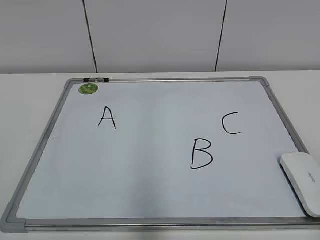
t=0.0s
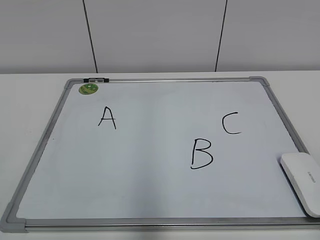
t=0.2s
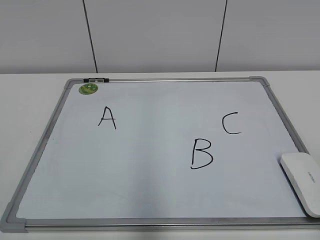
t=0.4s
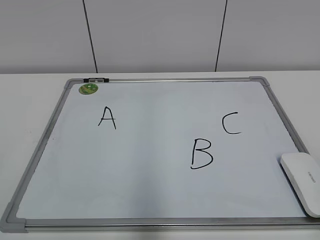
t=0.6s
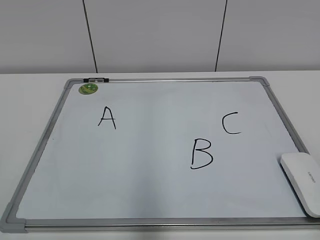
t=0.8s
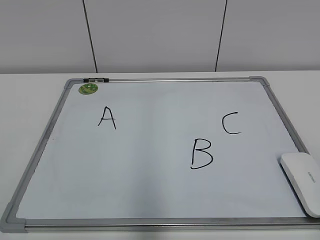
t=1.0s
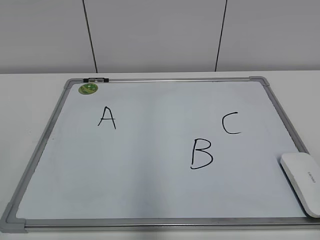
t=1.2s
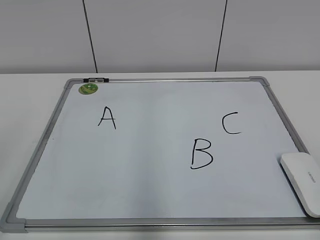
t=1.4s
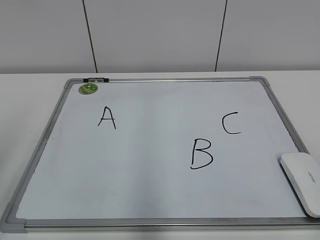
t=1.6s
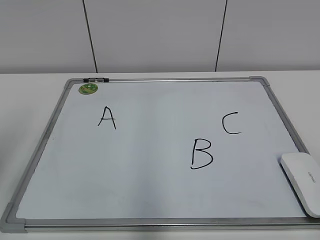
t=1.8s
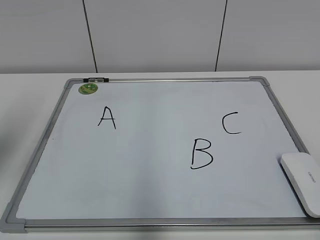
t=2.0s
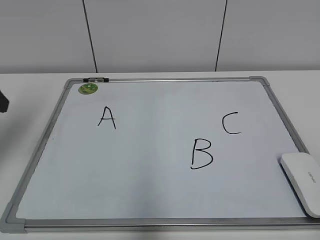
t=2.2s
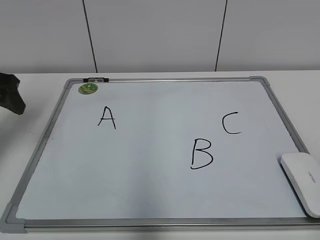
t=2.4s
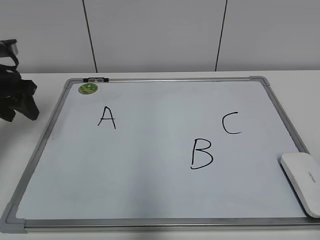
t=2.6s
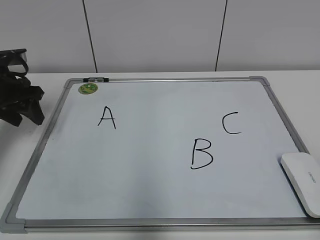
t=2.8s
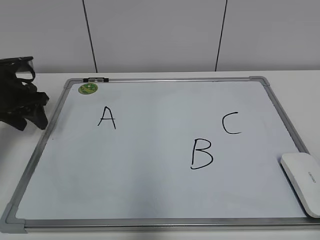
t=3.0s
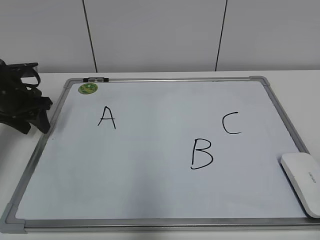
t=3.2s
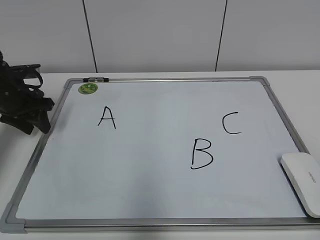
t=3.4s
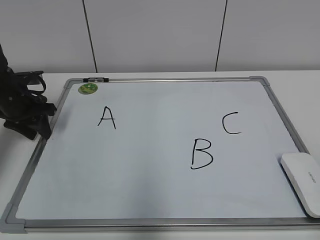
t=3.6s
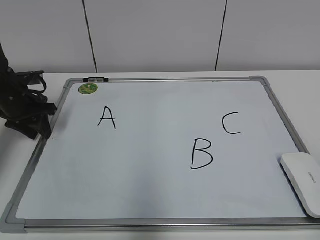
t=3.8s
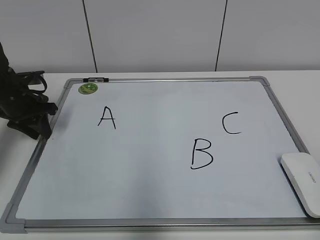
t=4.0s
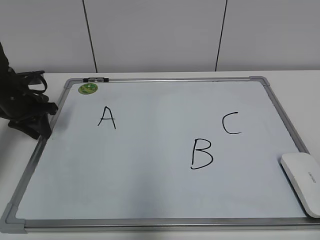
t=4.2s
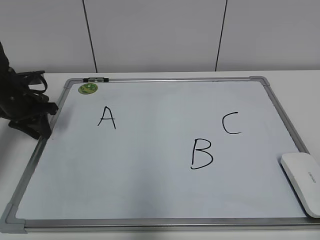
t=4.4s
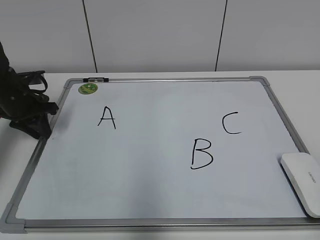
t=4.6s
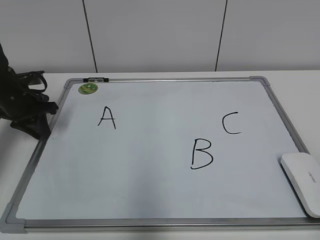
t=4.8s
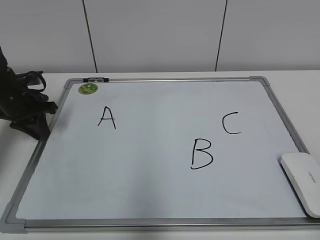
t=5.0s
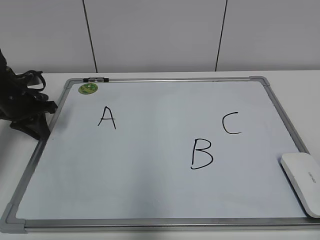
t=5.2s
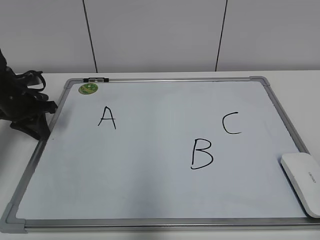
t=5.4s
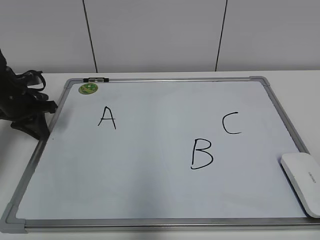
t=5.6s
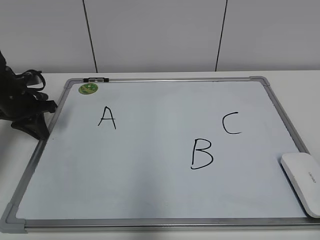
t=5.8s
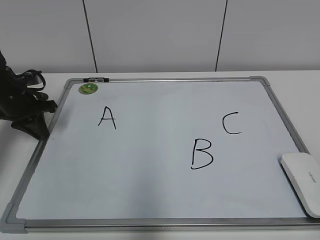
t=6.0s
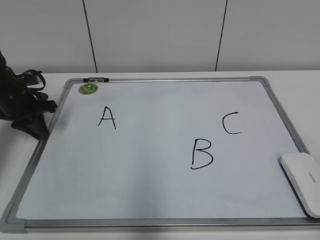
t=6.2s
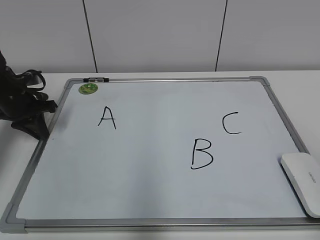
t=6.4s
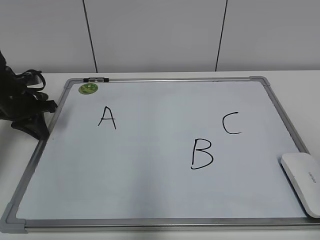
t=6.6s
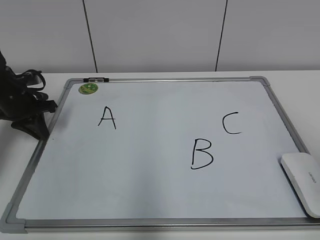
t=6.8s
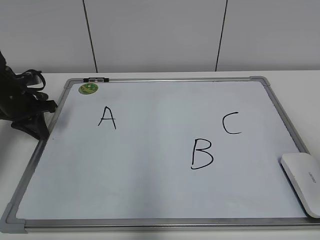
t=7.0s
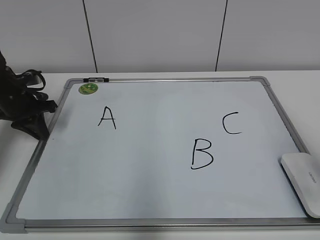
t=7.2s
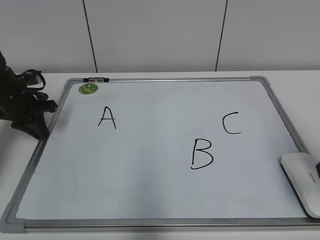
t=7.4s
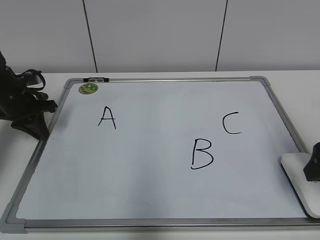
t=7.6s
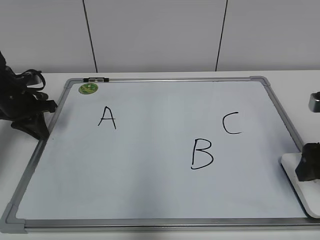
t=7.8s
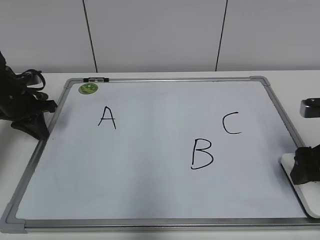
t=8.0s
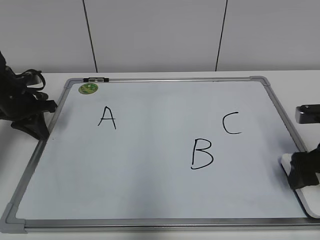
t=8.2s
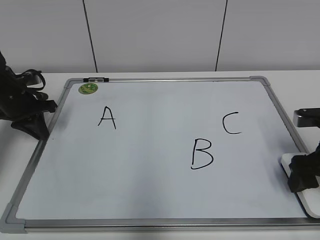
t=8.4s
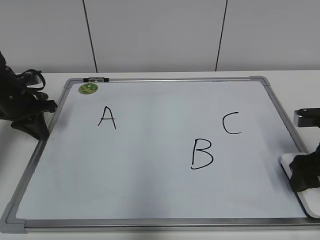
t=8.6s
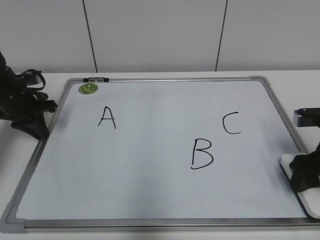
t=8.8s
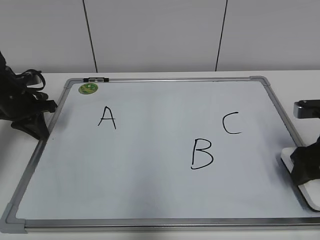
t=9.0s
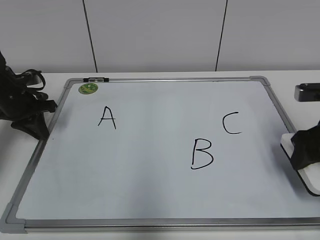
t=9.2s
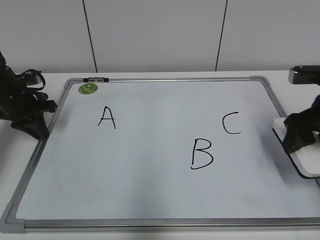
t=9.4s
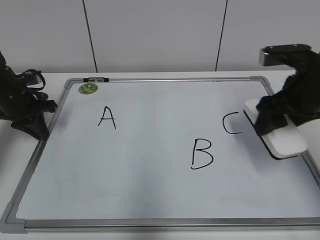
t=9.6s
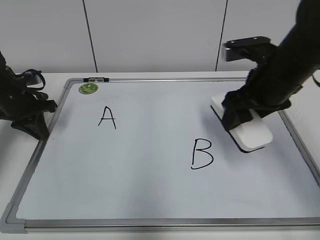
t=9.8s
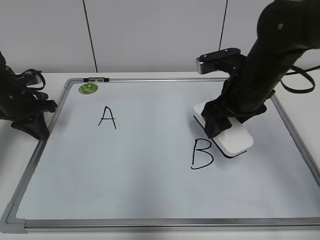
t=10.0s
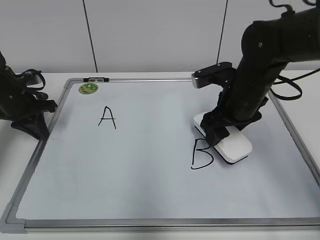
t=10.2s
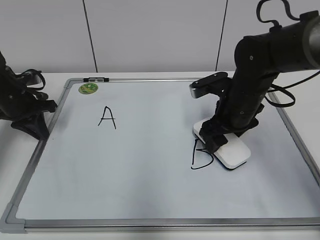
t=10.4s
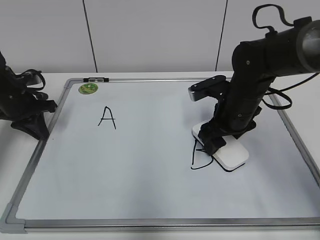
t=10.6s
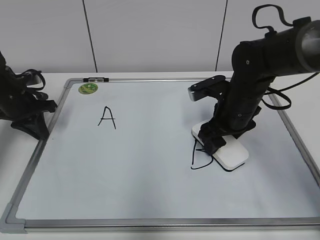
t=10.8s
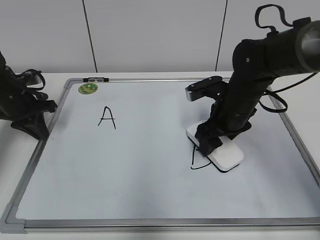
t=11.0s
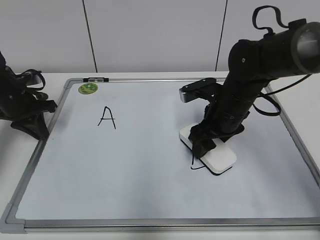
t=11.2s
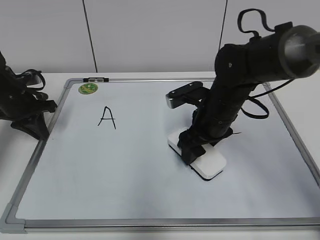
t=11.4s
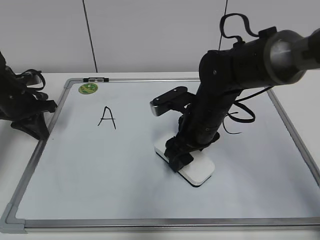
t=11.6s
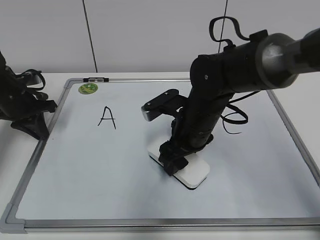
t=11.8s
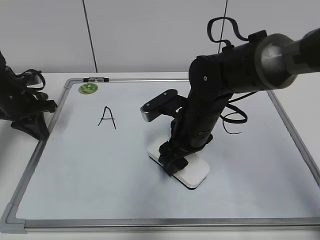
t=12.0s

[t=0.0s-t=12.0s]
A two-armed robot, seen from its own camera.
Task of the whole recording: pick up the eraser on the blackboard and erase the letter "B".
Step, t=0.0s to t=4.6s: Hold the drawing board steady with your left hand.
Step, t=5.0s to t=8.6s: Grab the eraser with your right hand.
t=1.6s to t=3.0s: The left gripper moves forward and downward, some 30 cm.
t=3.0s to t=4.4s: The left gripper changes place by some 5 cm, and closes up.
t=4.4s to t=6.0s: Both grippers stay about where they are.
t=6.0s to t=7.6s: The right gripper travels forward by some 25 cm, and opens.
t=7.6s to t=9.0s: The right gripper travels downward and forward by approximately 10 cm, and closes.
t=9.0s to t=10.4s: The right gripper heads to the left and forward, covering some 15 cm.
t=10.4s to t=12.0s: The right gripper travels to the left by some 10 cm.

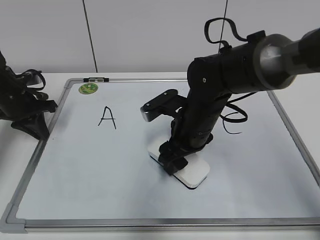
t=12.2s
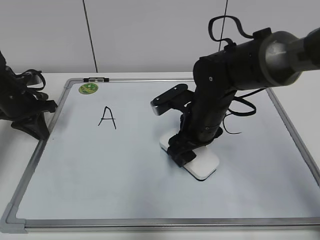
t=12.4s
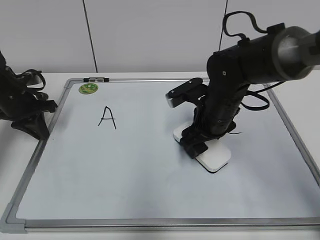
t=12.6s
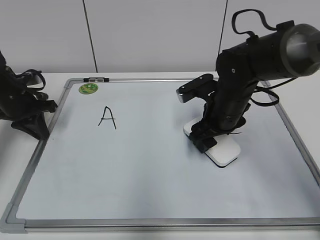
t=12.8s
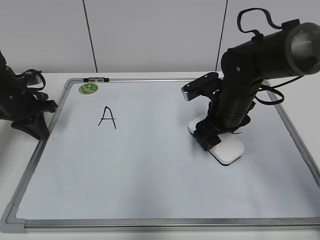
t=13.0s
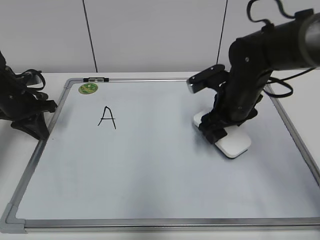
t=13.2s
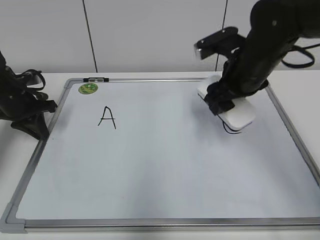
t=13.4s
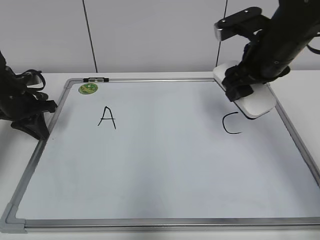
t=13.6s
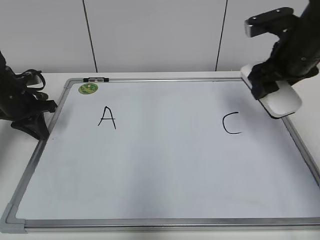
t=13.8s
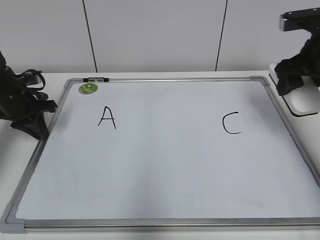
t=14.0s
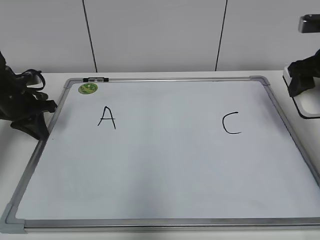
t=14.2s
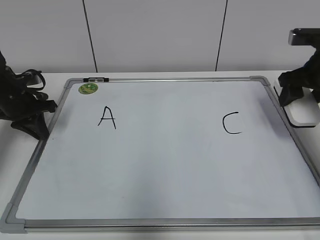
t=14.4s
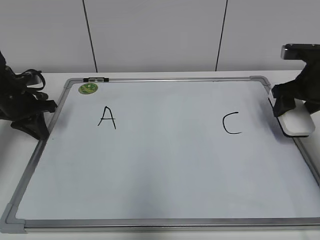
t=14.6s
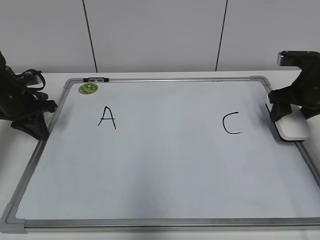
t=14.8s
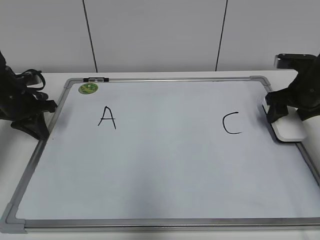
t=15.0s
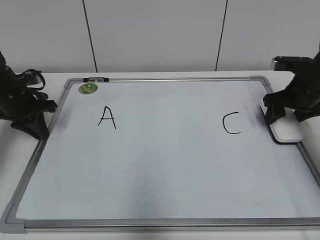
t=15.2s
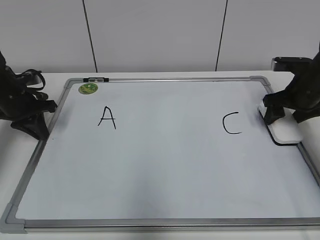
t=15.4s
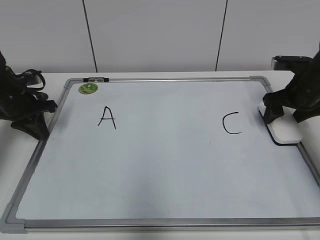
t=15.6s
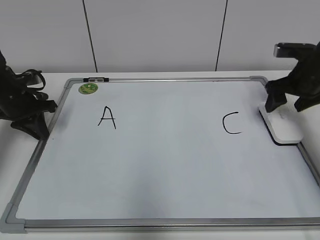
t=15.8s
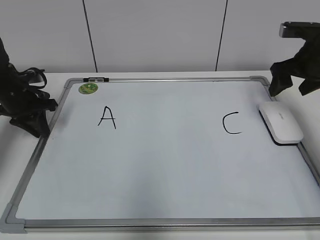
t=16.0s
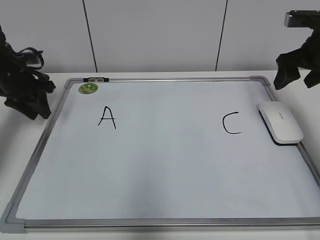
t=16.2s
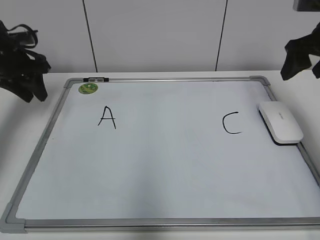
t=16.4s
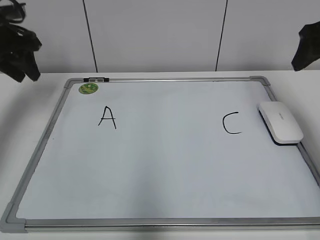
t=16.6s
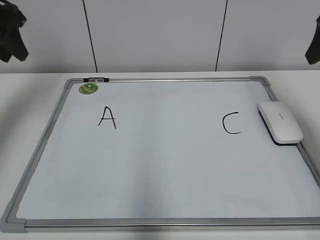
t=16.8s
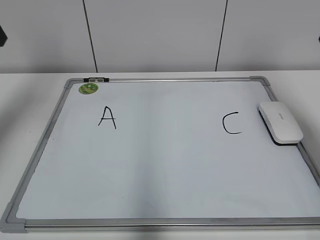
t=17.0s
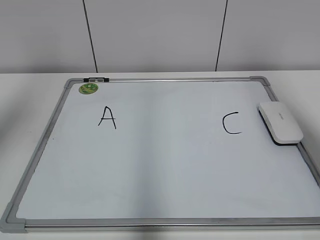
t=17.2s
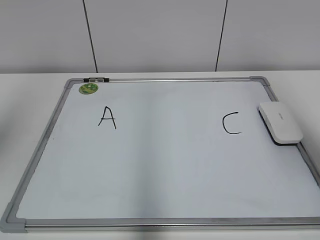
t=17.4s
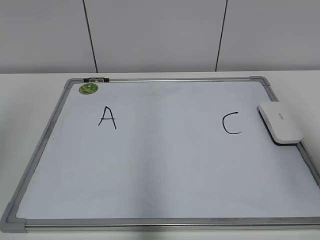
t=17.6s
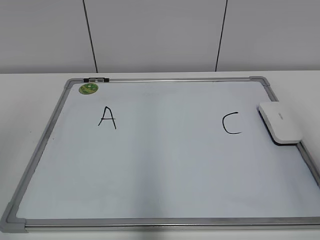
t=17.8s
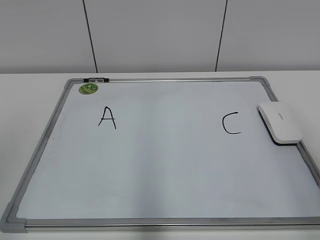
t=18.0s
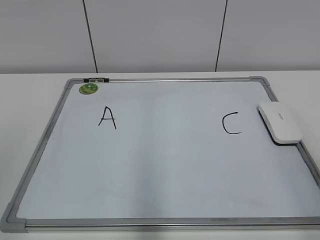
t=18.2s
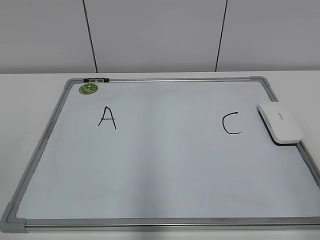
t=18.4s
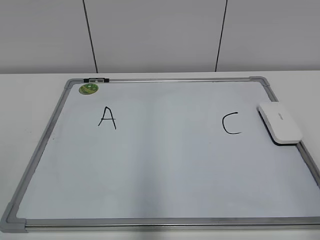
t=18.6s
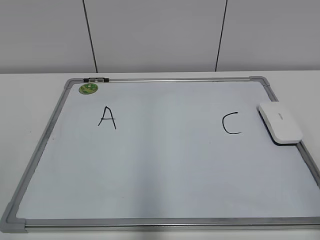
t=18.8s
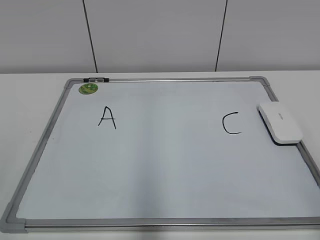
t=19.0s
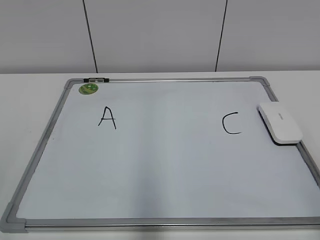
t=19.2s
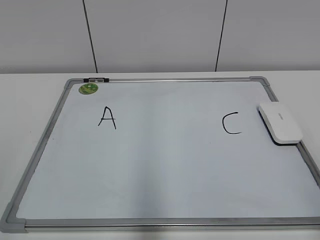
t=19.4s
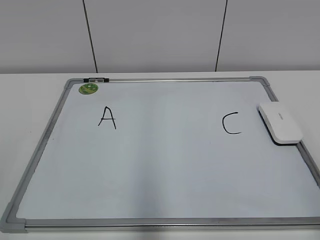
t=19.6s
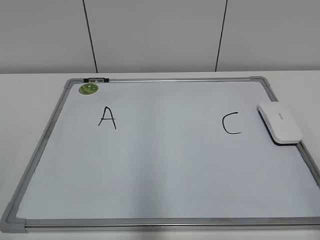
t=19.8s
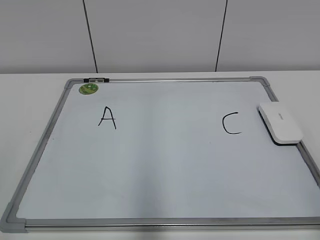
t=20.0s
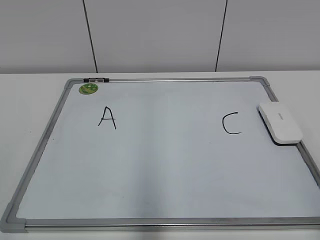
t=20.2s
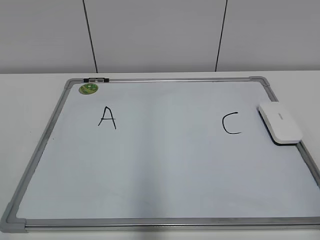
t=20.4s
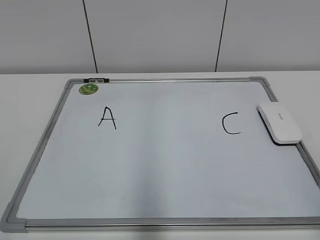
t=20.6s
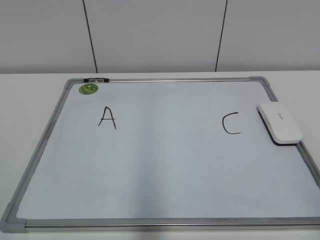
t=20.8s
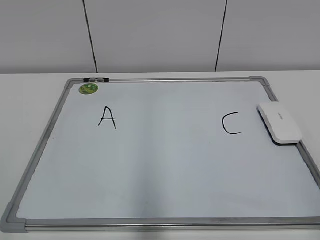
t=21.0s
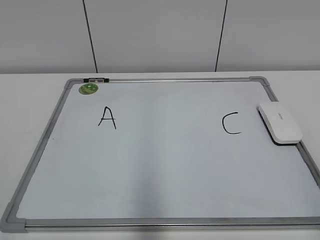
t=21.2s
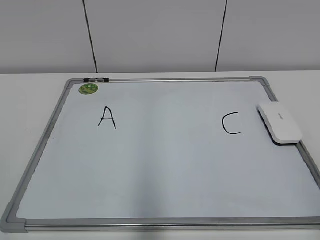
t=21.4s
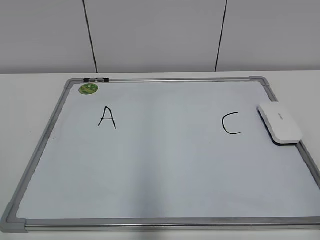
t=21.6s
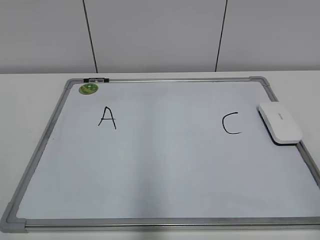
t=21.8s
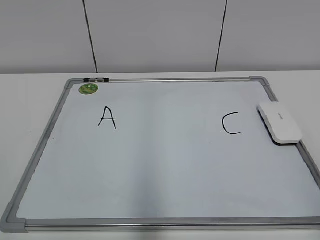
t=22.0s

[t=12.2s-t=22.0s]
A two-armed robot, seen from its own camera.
Task of the whole recording: pick up the eraser on the blackboard and erase the letter "B".
Step, t=13.2s to t=15.6s: Put down the eraser with your right hand.
t=12.2s to t=13.6s: The right gripper moves upward and to the right, roughly 15 cm.
t=13.6s to t=15.0s: The right gripper moves to the right and downward, roughly 15 cm.
t=15.0s to t=16.4s: The left gripper goes about 5 cm upward, and opens its fingers. Meanwhile the right gripper shifts approximately 10 cm upward, and opens.
t=16.4s to t=17.8s: The right gripper moves backward, roughly 25 cm. The left gripper shifts approximately 40 cm backward and upward.
t=20.6s to t=22.0s: Both grippers stay about where they are.
